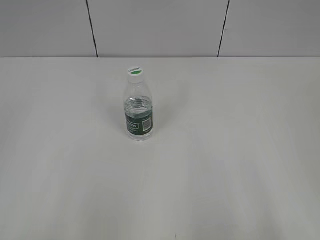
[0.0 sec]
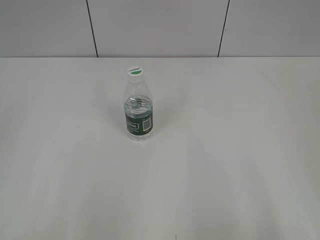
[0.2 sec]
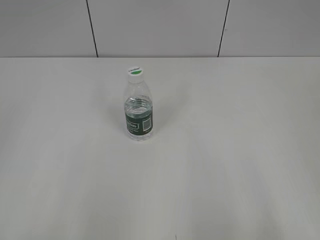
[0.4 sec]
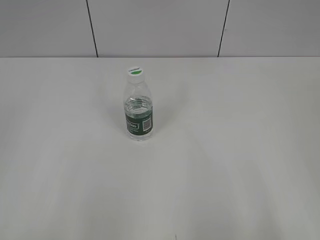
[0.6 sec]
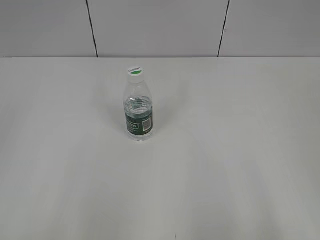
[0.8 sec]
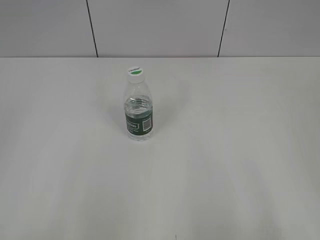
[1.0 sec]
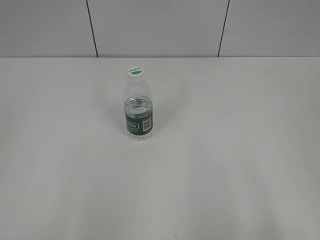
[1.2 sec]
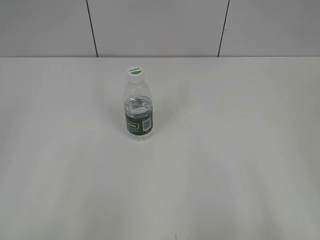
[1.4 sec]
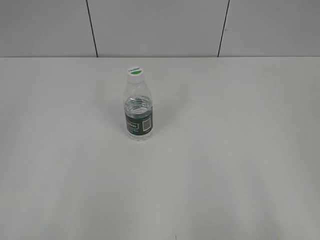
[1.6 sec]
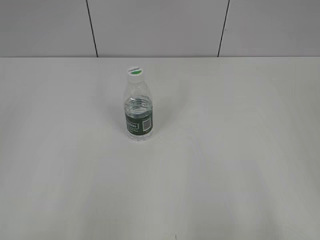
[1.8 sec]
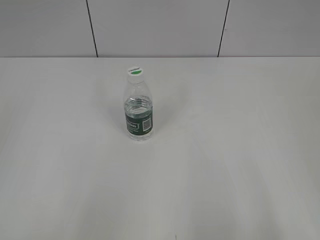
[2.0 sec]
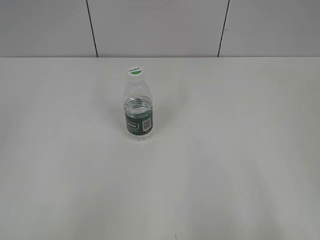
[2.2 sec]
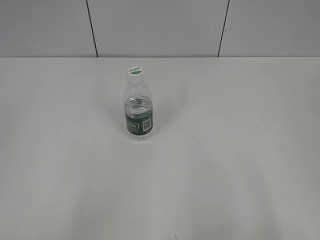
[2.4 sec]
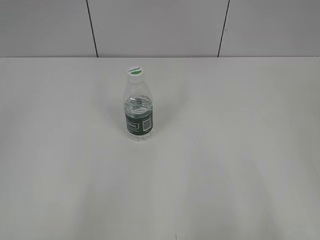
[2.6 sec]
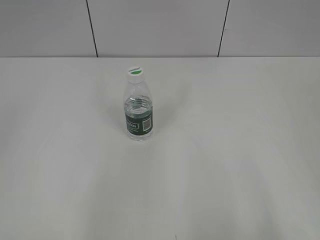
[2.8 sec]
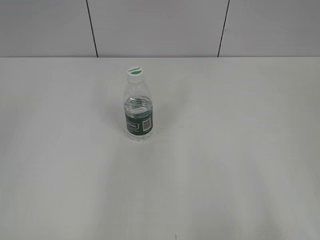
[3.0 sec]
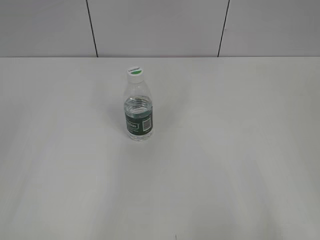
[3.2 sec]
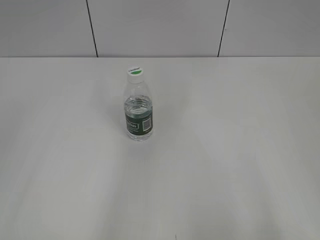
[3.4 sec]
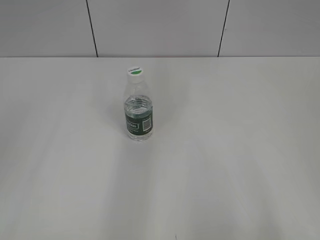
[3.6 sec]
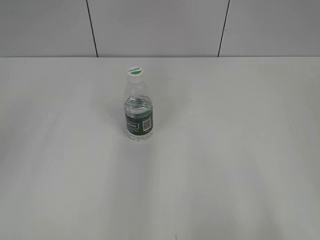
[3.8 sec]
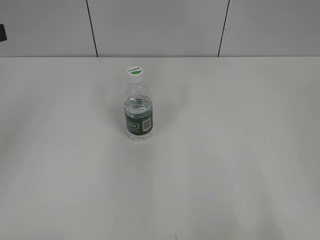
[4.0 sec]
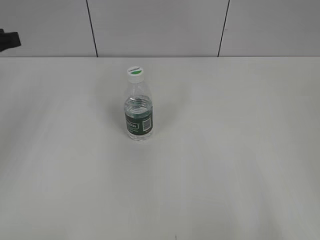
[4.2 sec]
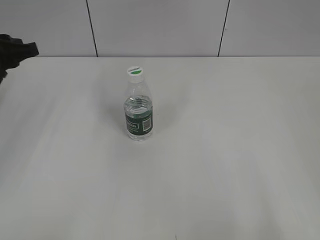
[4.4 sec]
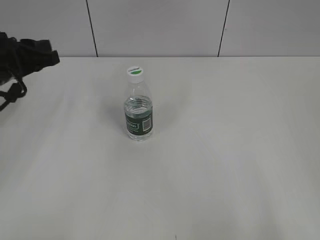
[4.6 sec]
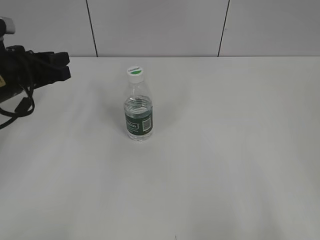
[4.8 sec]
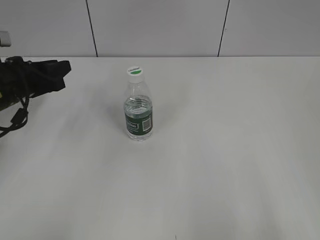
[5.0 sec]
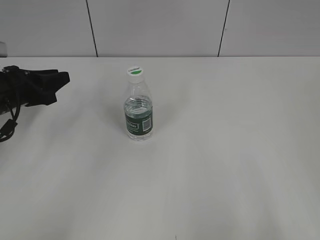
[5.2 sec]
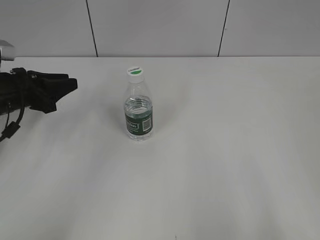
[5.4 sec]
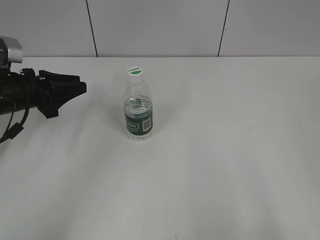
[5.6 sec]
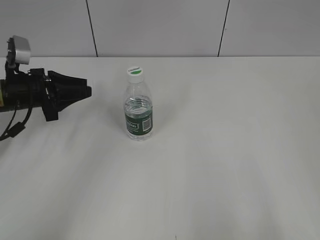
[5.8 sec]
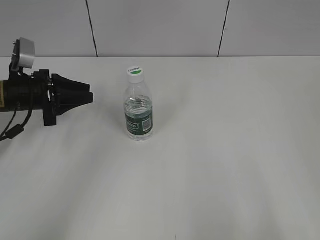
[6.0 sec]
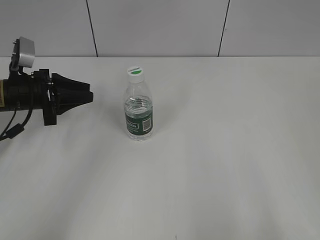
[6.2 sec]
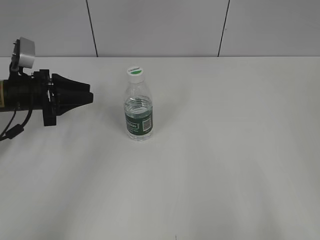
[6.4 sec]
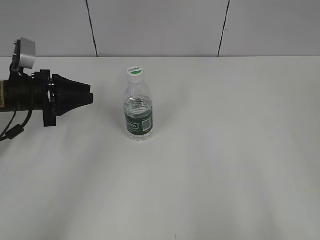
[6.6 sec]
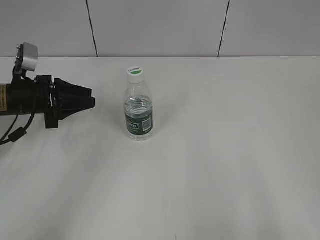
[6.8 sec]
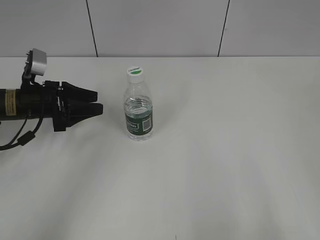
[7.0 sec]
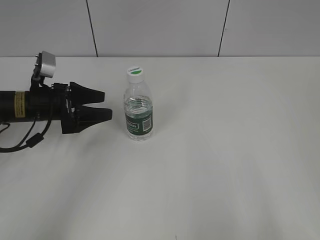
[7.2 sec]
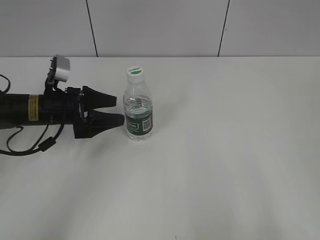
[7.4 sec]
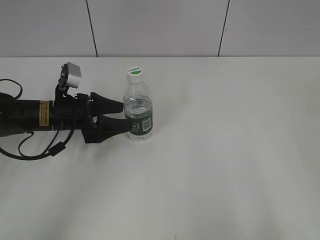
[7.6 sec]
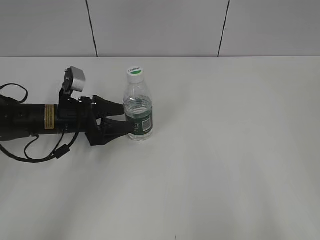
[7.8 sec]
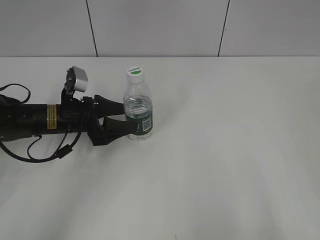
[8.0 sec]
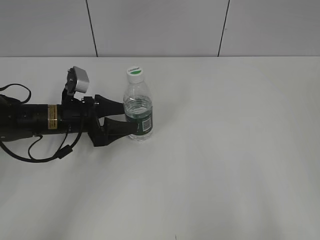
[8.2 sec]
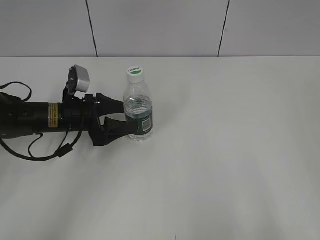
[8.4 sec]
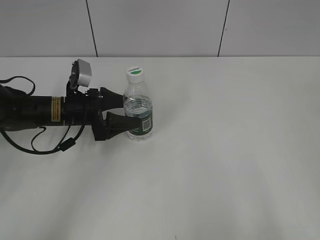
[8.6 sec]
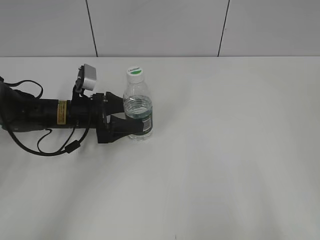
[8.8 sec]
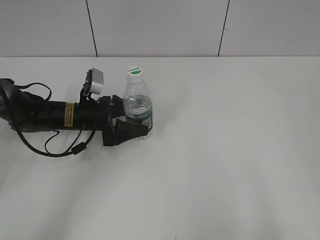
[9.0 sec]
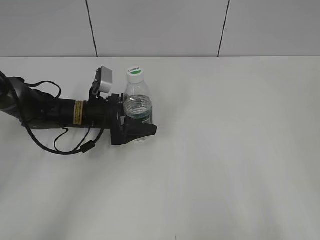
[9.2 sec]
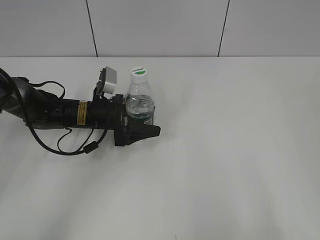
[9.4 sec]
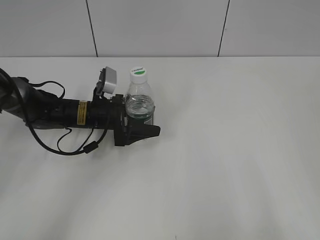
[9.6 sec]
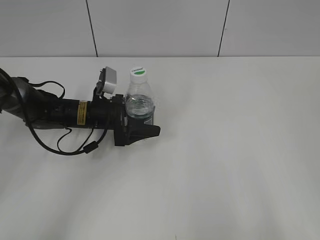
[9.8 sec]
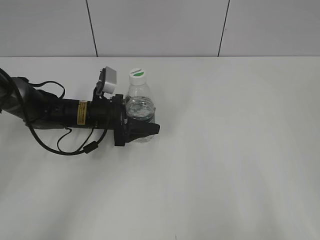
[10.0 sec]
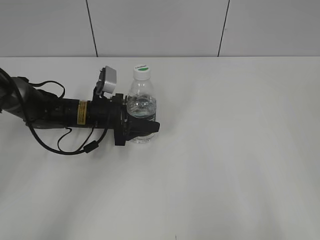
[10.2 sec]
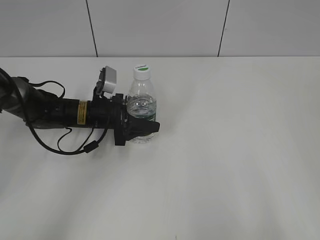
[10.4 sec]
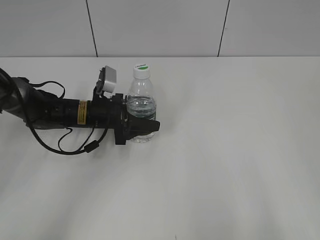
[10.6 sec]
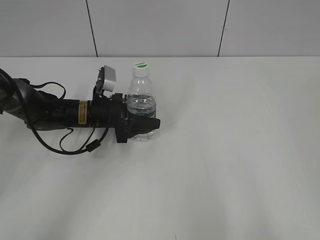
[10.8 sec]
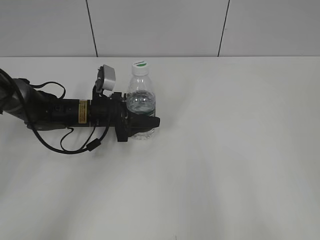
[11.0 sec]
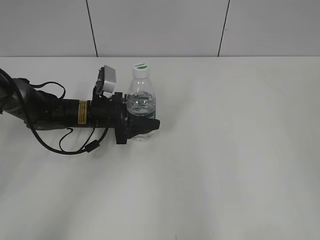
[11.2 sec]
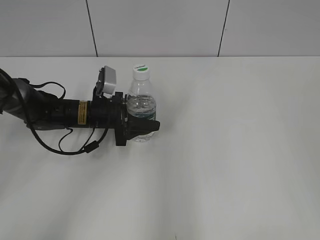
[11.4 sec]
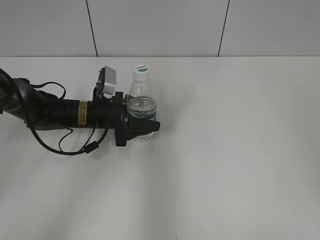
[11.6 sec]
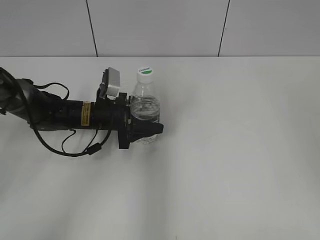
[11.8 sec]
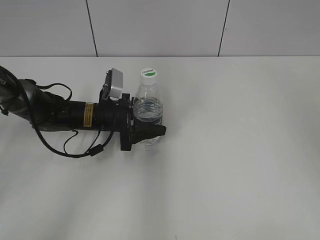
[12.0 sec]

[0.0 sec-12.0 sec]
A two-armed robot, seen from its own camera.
3.0 sec to 4.4 sec: The left gripper moves forward and downward, approximately 30 cm.
4.4 sec to 6.0 sec: The left gripper travels downward by about 10 cm.
6.0 sec to 7.6 sec: The left gripper shifts roughly 5 cm to the right, and opens its fingers.
7.6 sec to 9.0 sec: The left gripper ends up some 5 cm from where it was.
9.0 sec to 10.4 sec: The left gripper closes.
10.4 sec to 12.0 sec: The right gripper is displaced forward by approximately 25 cm.

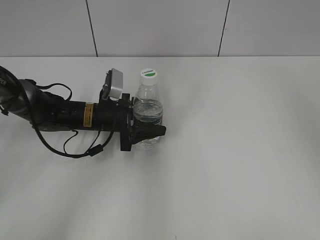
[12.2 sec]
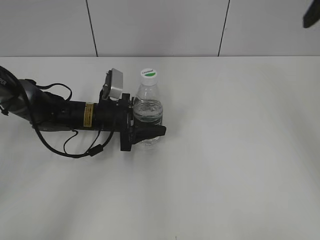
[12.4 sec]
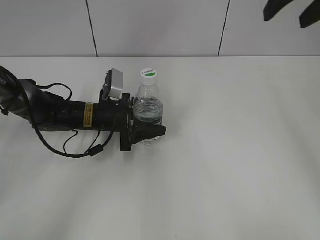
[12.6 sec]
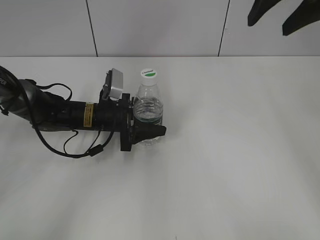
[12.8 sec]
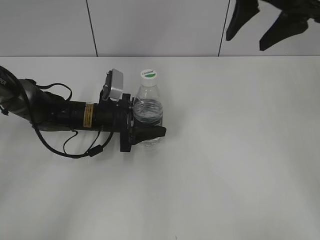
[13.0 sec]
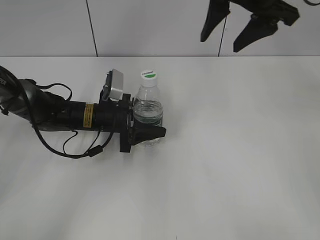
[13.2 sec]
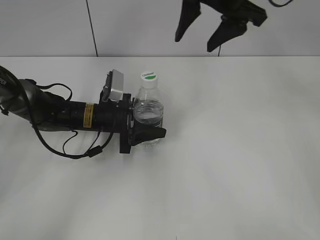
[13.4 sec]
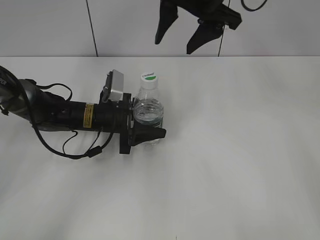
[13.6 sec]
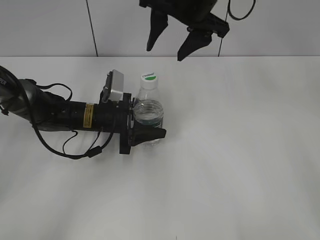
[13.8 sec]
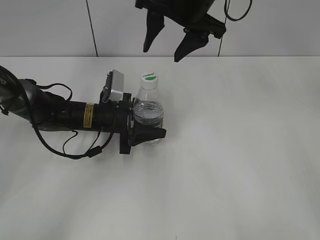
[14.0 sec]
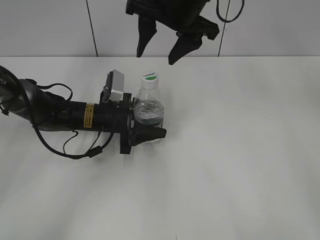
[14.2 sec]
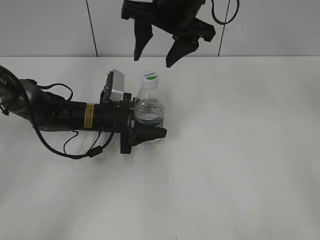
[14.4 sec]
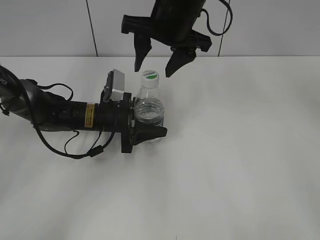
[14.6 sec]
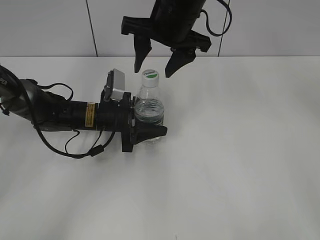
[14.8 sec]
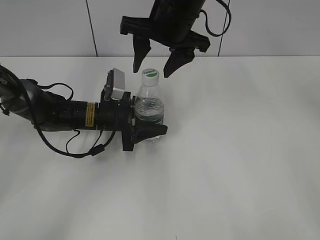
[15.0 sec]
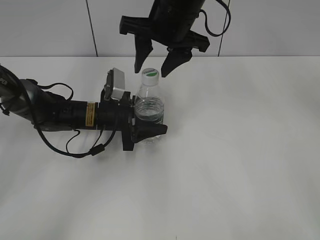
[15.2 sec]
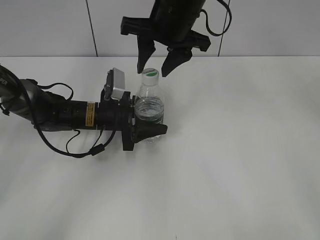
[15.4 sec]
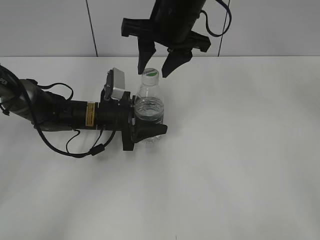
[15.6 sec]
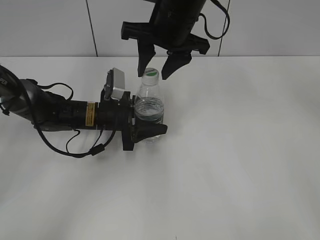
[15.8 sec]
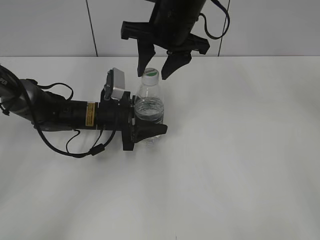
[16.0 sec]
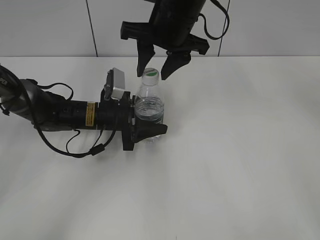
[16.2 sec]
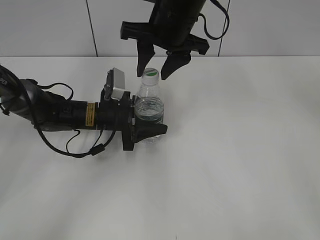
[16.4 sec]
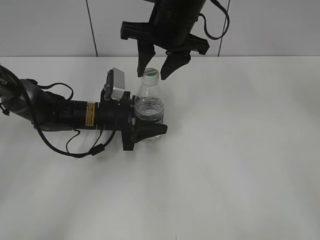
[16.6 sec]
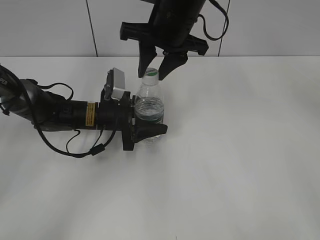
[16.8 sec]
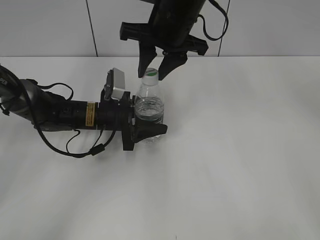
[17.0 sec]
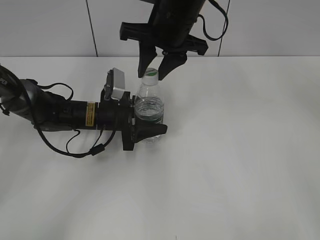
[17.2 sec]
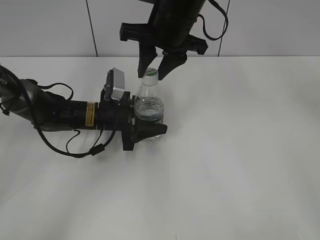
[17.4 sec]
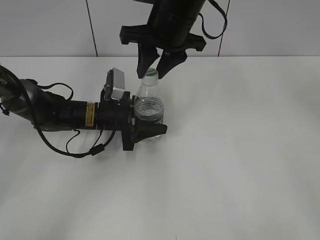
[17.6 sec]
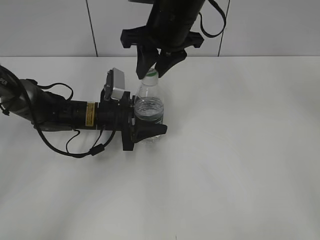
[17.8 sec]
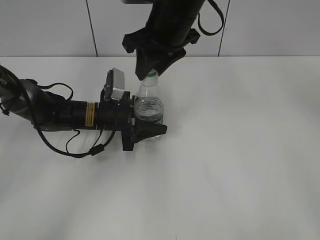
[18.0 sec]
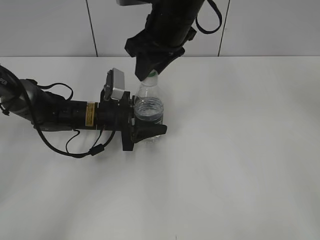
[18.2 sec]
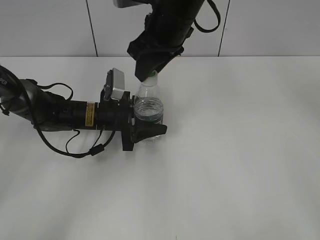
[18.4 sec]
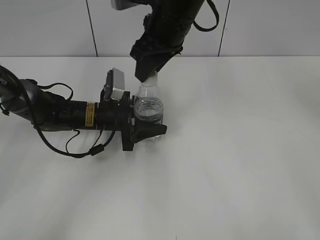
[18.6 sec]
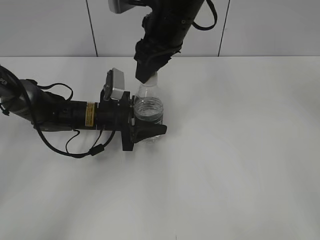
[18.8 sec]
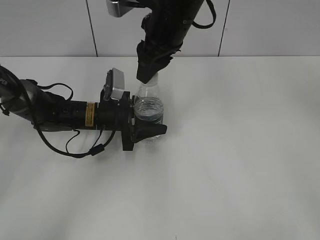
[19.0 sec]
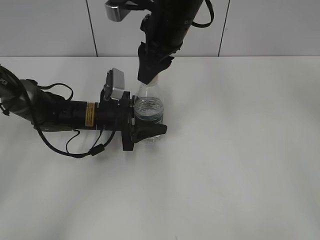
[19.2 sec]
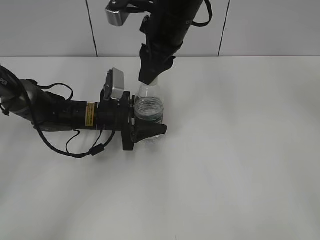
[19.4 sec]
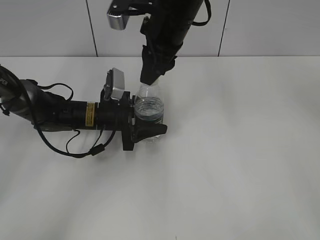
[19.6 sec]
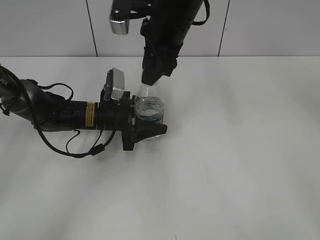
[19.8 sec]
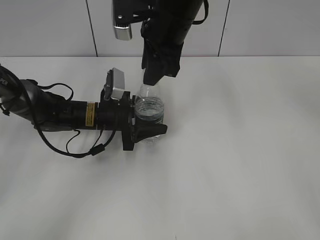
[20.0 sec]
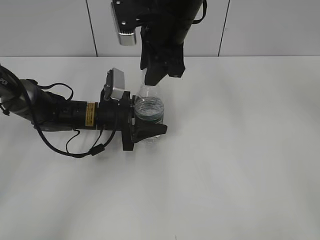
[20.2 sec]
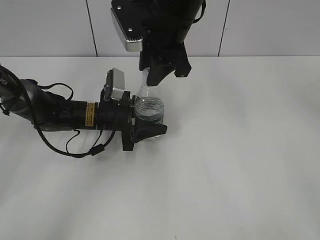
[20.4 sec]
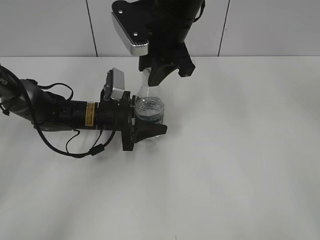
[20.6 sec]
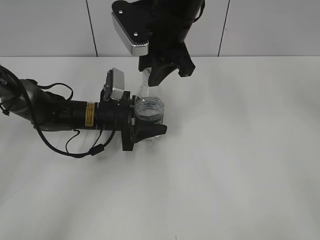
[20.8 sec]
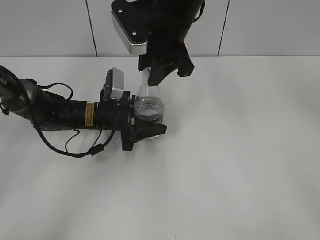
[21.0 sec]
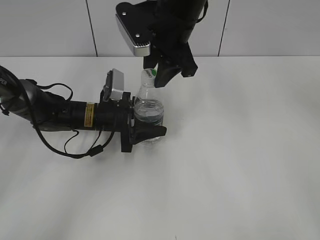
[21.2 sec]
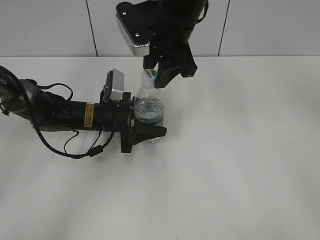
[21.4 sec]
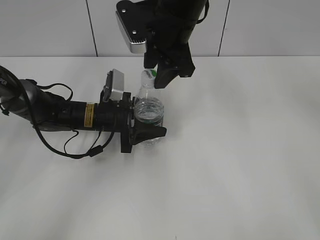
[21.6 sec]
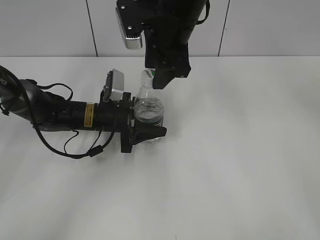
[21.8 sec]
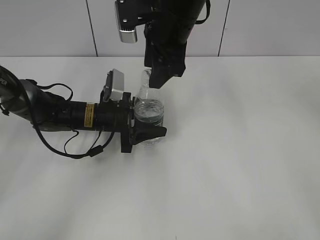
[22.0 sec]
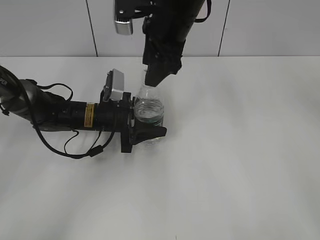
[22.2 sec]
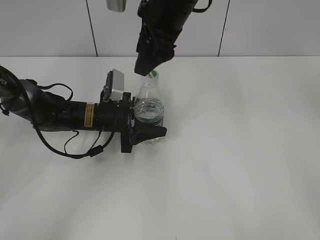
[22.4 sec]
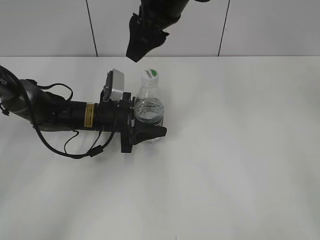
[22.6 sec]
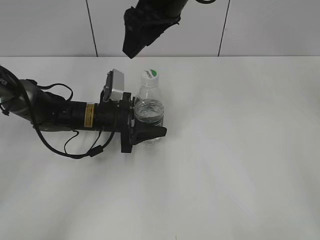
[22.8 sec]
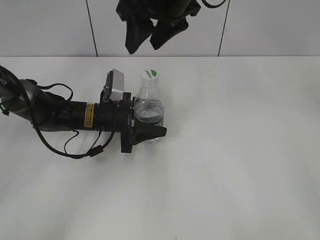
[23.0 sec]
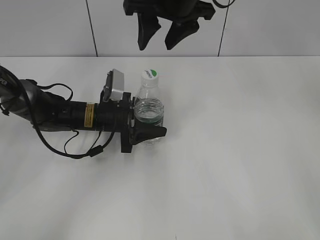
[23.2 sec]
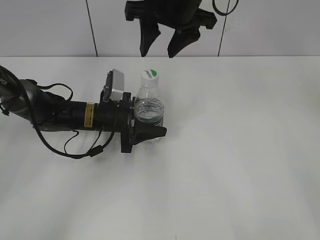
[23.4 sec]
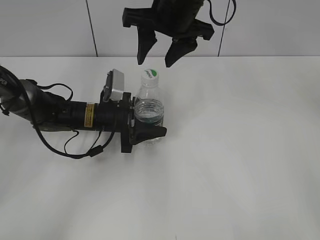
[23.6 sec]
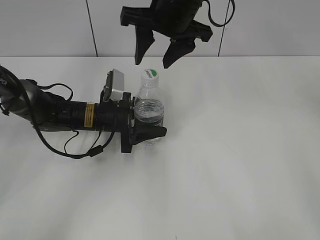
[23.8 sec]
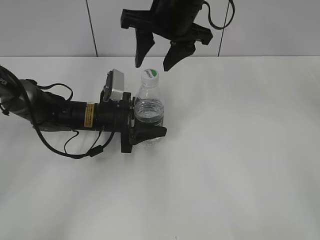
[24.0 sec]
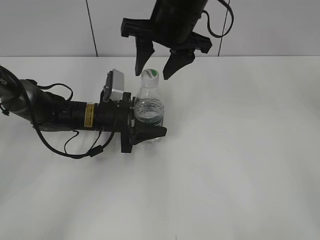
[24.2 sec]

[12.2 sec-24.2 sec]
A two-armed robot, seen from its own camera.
12.2 sec to 13.8 sec: The right gripper shifts approximately 25 cm to the left and forward.
13.8 sec to 15.2 sec: The grippers move only a little.
15.2 sec to 16.6 sec: Both grippers stay about where they are.
